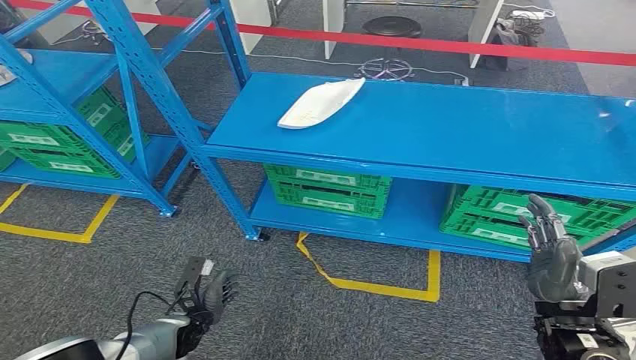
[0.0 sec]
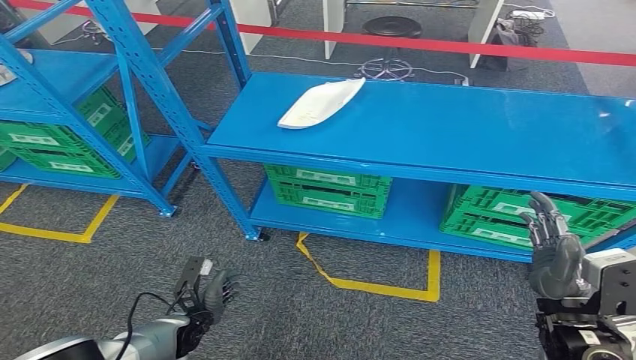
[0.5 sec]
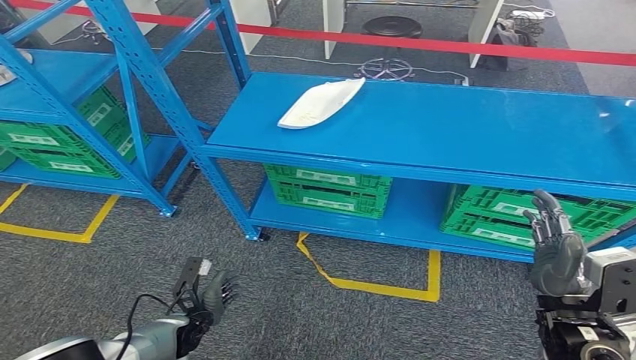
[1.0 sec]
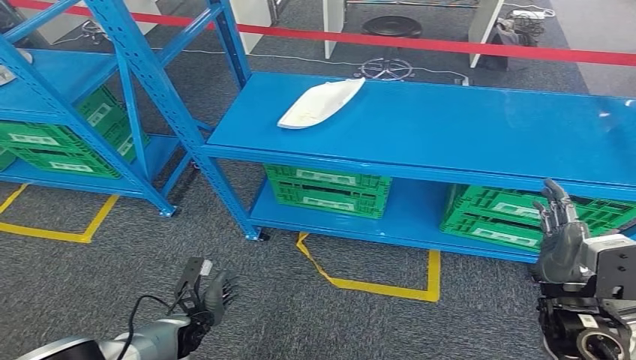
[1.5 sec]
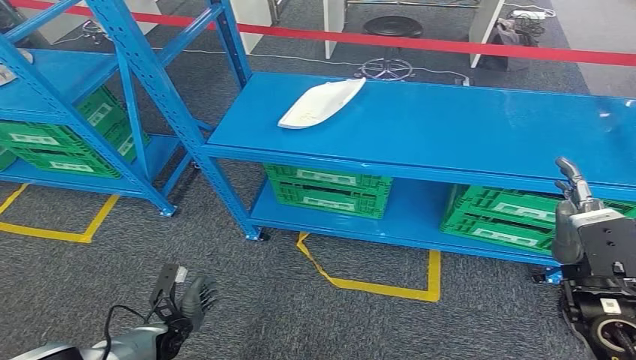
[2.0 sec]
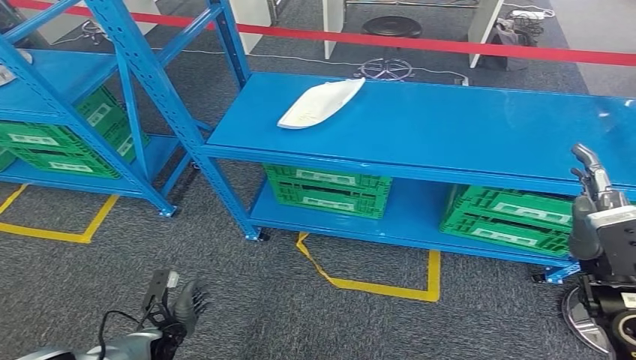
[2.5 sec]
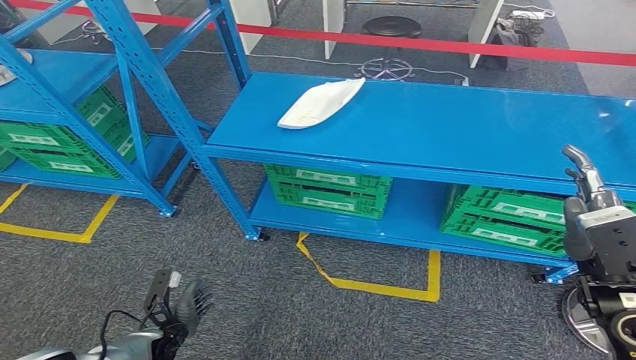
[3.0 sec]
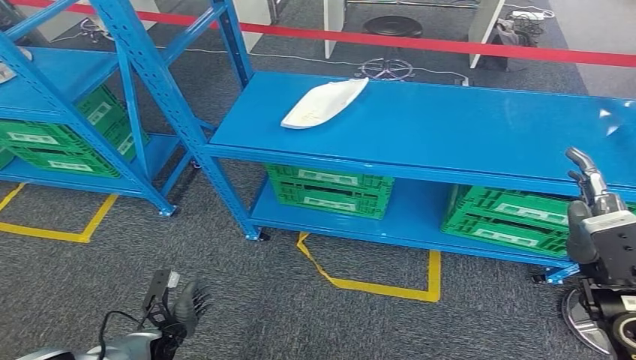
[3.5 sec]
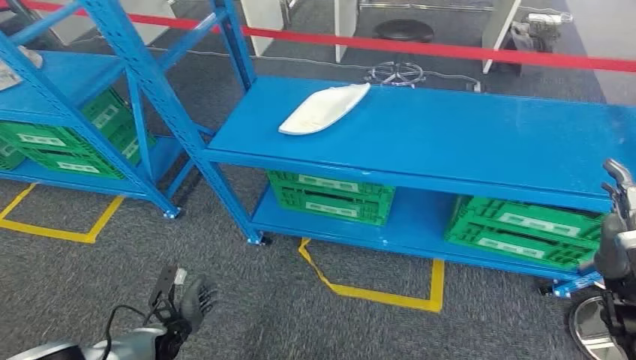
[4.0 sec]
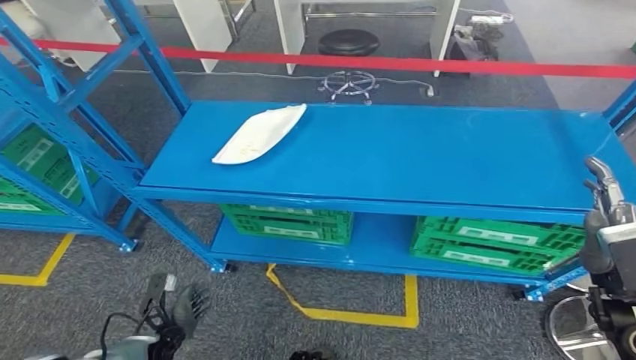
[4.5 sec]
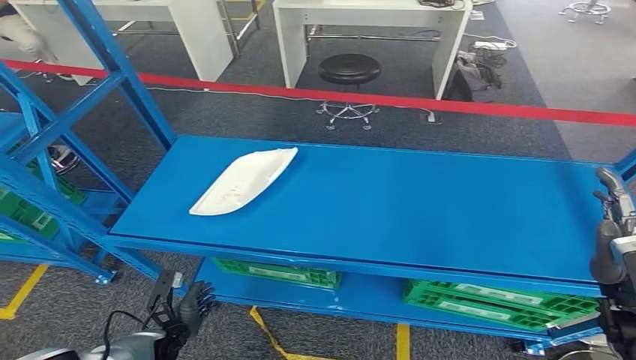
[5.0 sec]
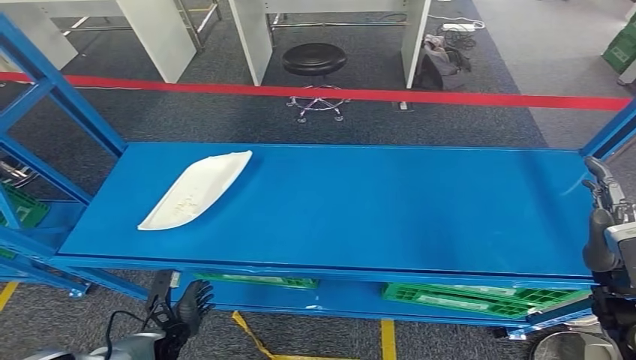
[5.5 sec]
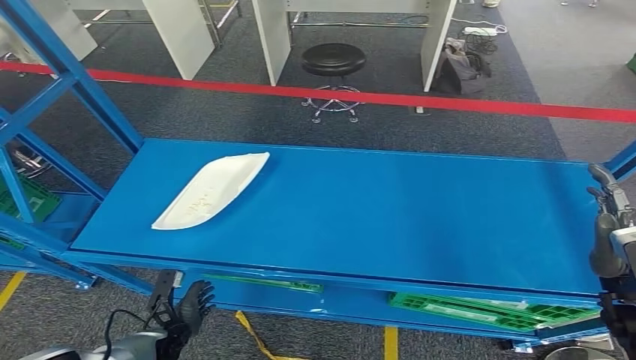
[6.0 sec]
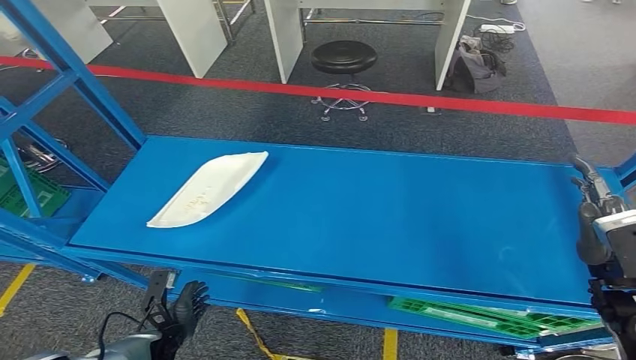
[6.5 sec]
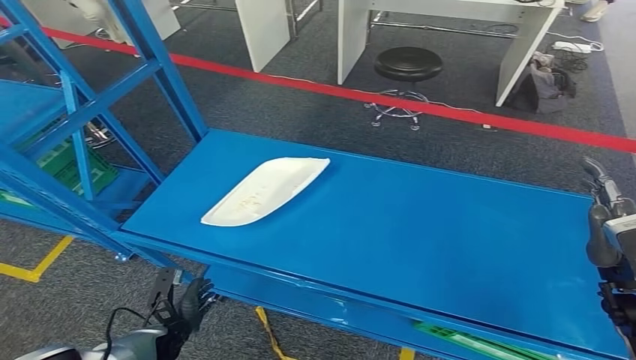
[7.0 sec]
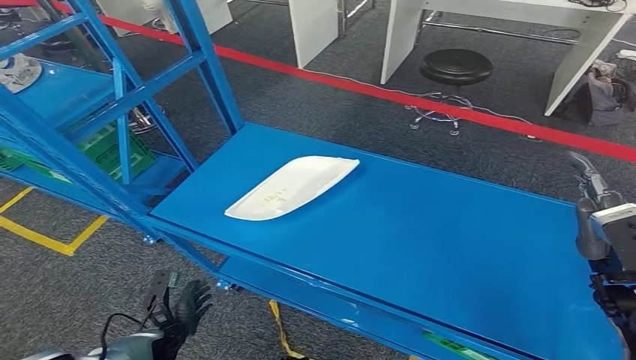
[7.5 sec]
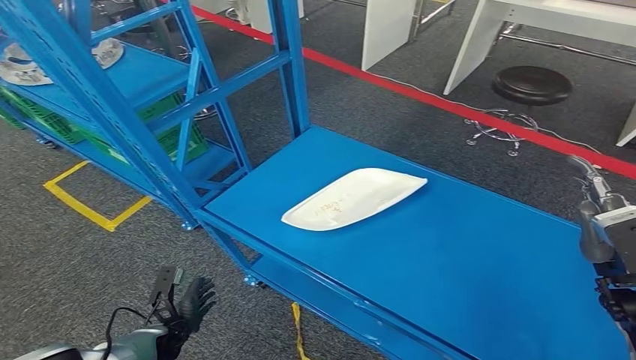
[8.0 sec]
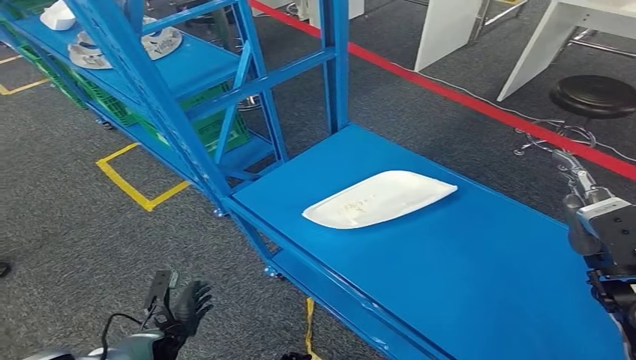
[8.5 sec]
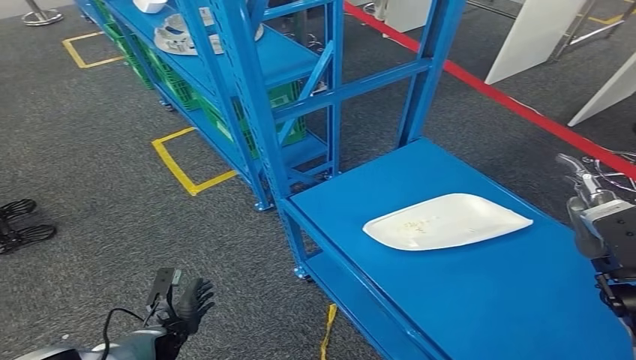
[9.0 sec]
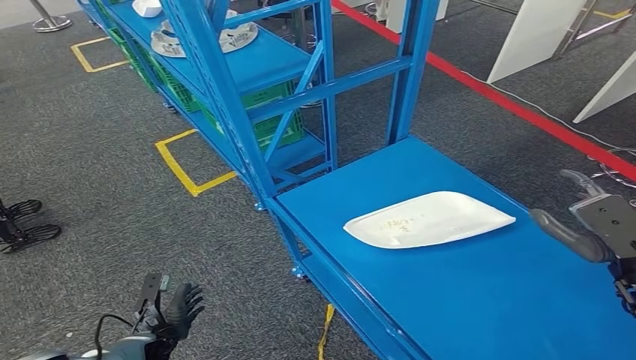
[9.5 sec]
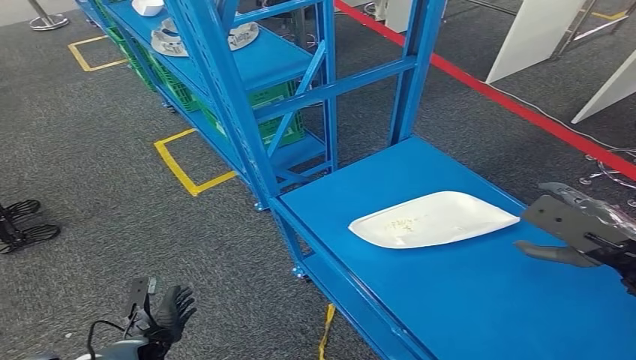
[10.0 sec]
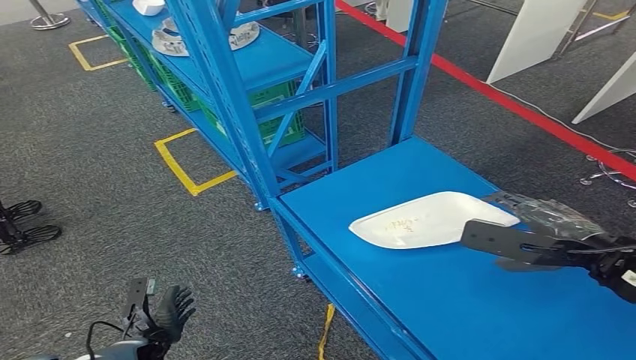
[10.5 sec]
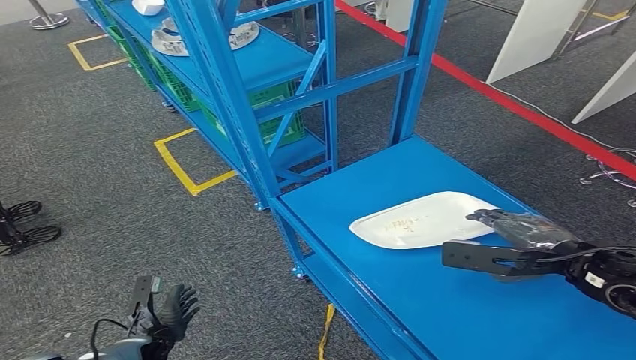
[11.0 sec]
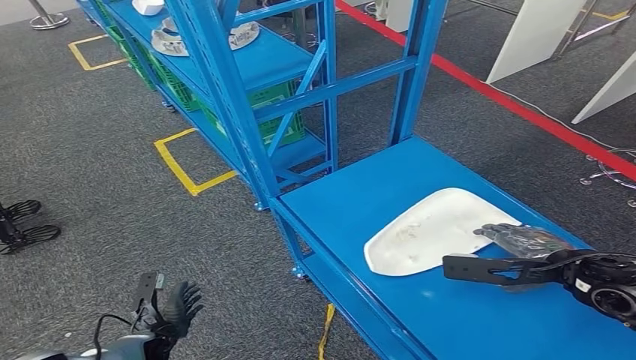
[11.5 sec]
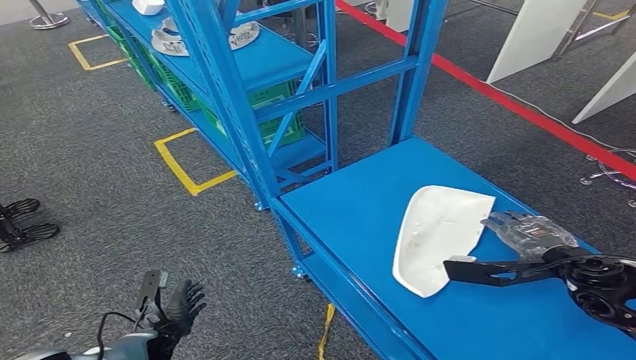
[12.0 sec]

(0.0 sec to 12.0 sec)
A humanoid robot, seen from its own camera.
2.0 sec - 4.0 sec: The hands stay close to where they were, moving slightly.
10.0 sec - 12.0 sec: The right hand travels downward by some 5 cm.

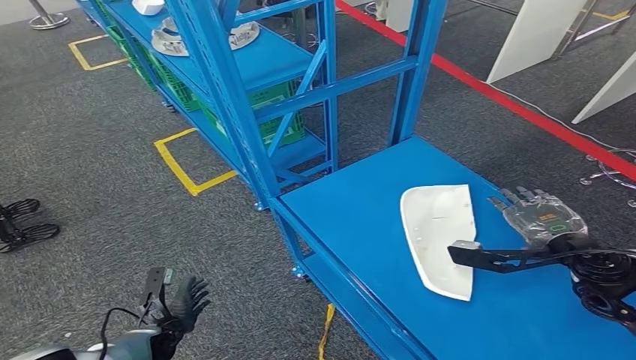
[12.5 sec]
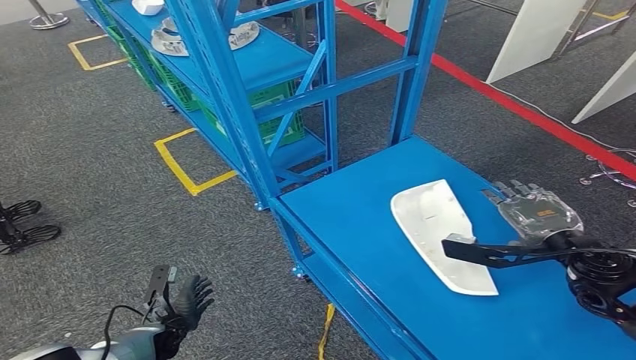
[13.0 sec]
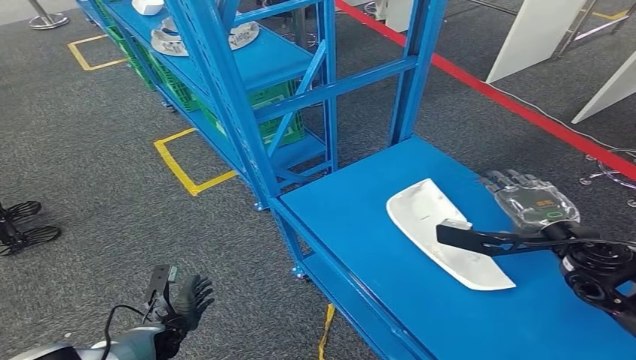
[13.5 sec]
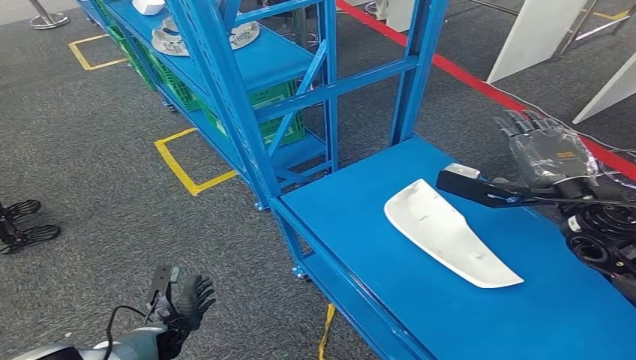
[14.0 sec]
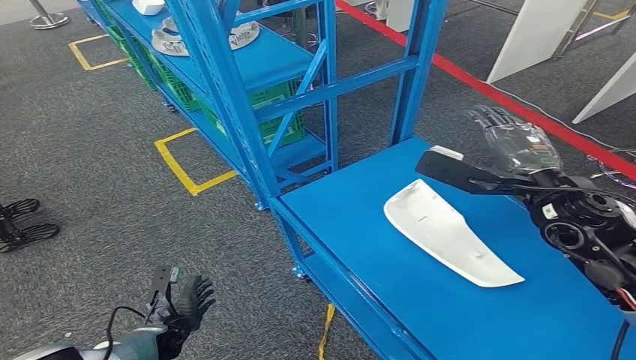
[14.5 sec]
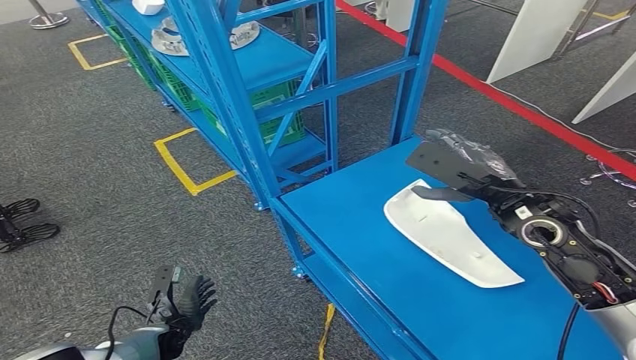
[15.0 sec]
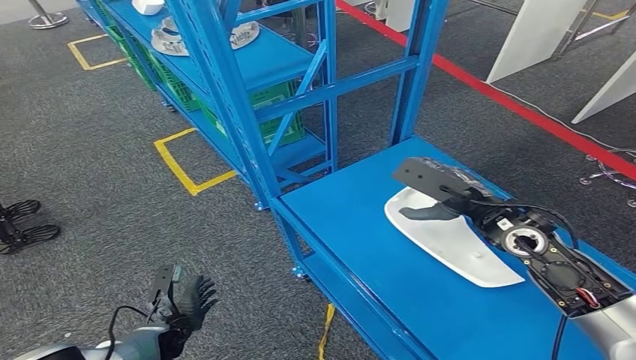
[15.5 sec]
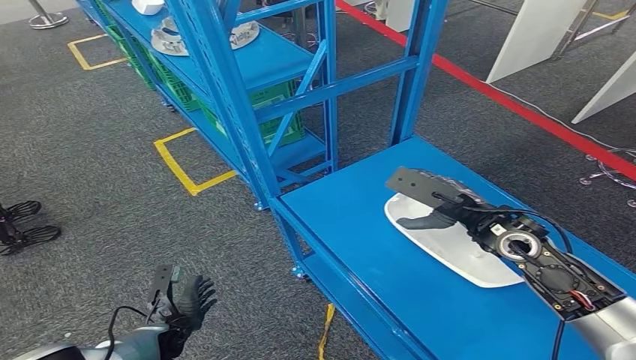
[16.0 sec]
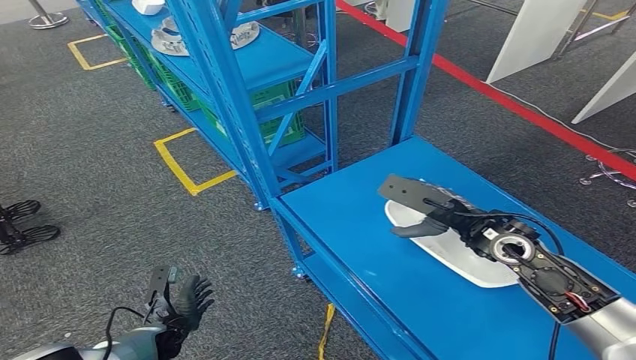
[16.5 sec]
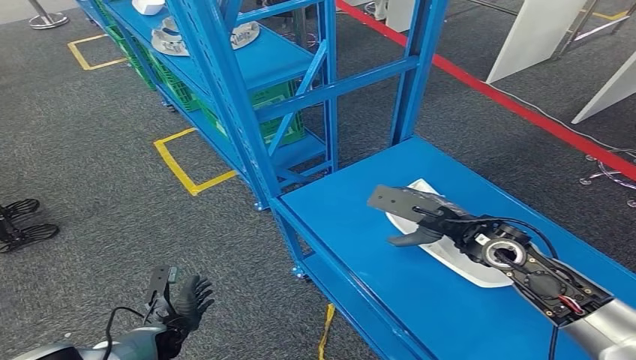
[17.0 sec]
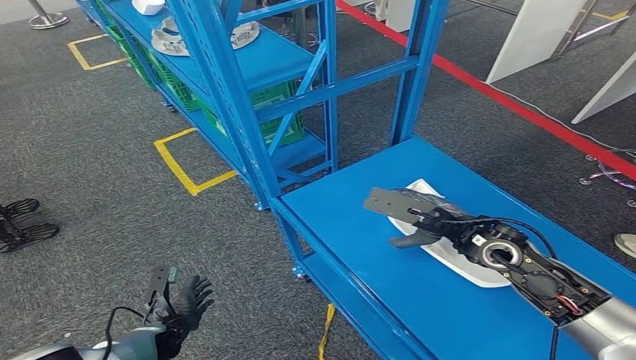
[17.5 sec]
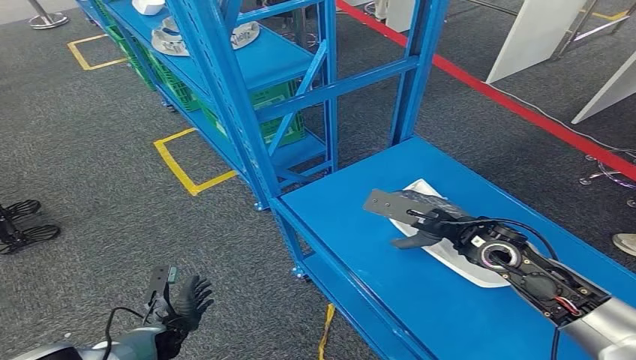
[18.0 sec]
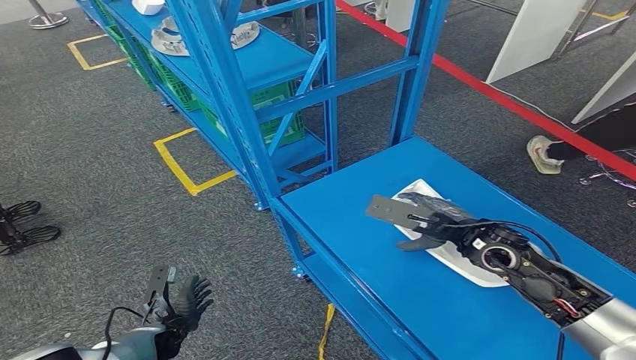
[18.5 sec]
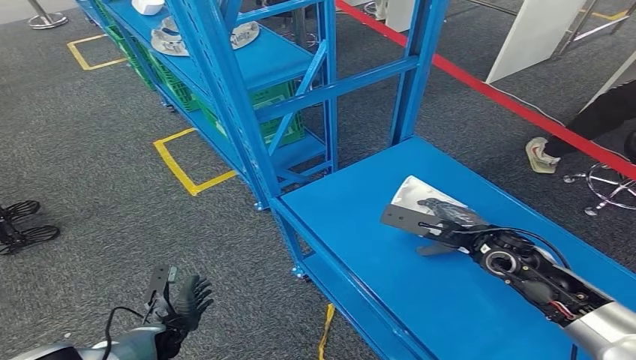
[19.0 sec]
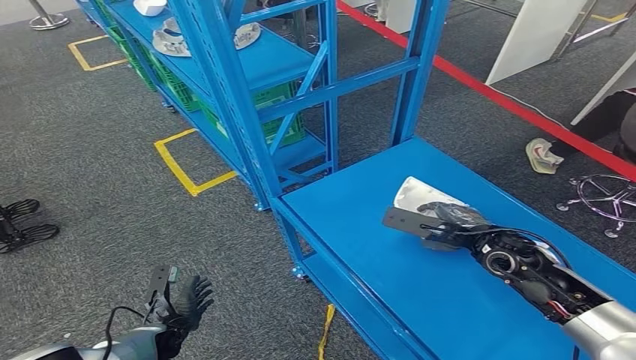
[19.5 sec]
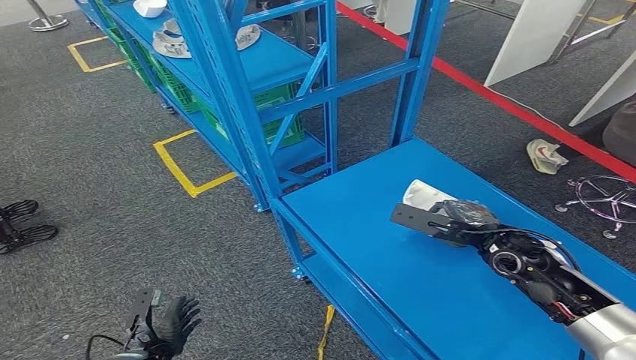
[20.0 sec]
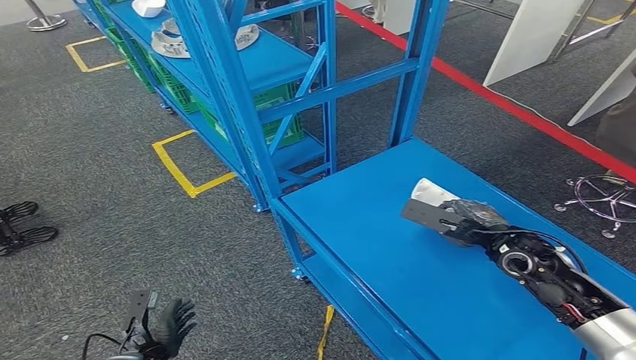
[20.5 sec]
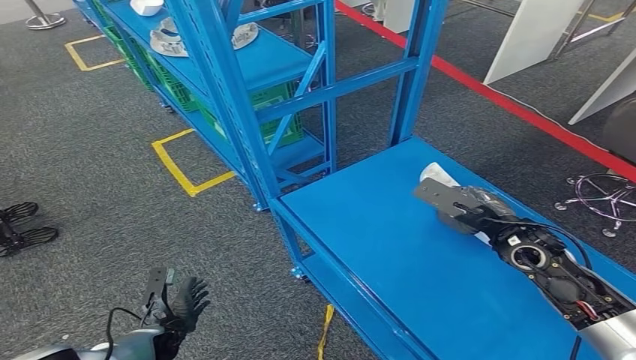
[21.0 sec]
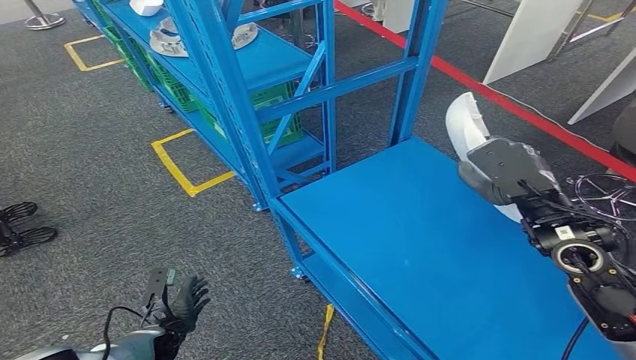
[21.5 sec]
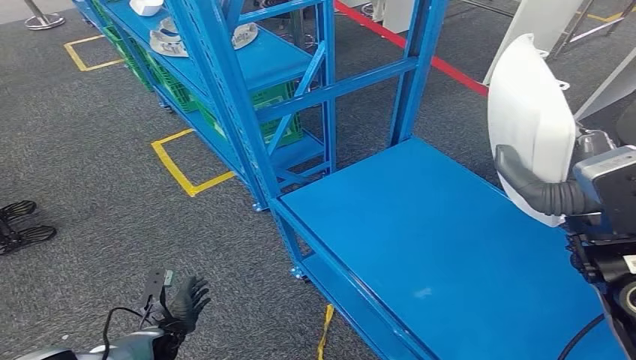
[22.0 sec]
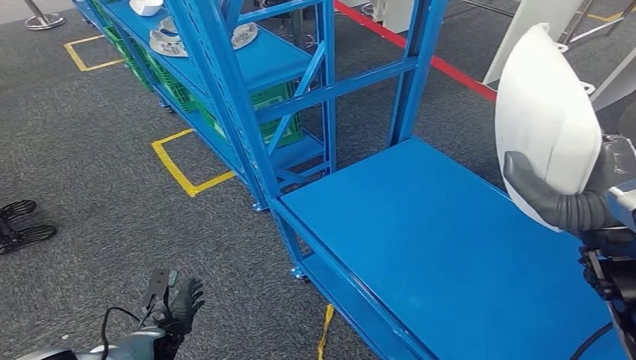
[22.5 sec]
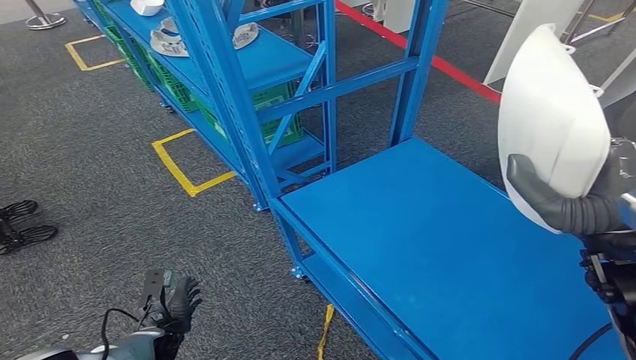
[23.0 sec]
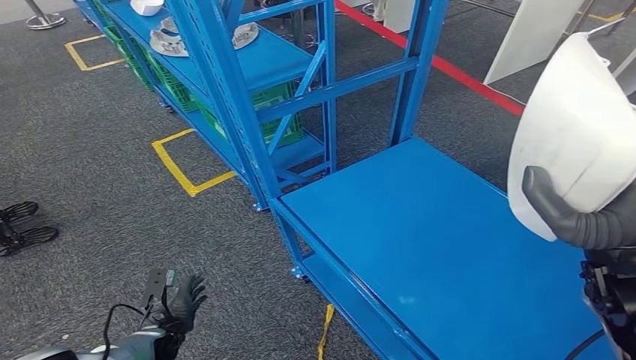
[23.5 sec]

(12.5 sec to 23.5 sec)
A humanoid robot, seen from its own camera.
Step, 12.5 sec - 23.0 sec: Pick up the small component from the shelf.
12.5 sec - 14.5 sec: The right hand shifts roughly 10 cm upward and to the left.
14.5 sec - 16.0 sec: The right hand goes approximately 5 cm downward.
16.0 sec - 18.0 sec: There are only small adjustments of the hands.
18.0 sec - 20.0 sec: The right hand is displaced to the right by about 5 cm. The left hand shifts about 5 cm backward.
20.0 sec - 21.5 sec: The right hand is displaced upward by roughly 10 cm. The left hand ends up approximately 5 cm from where it was.
21.5 sec - 23.5 sec: The right hand is displaced backward by about 10 cm.
